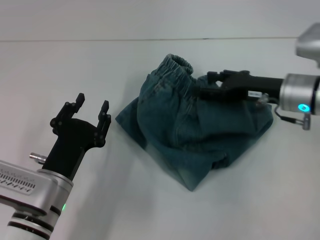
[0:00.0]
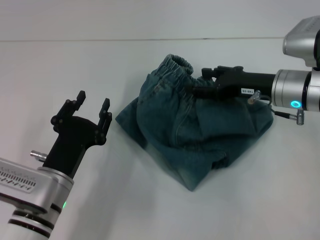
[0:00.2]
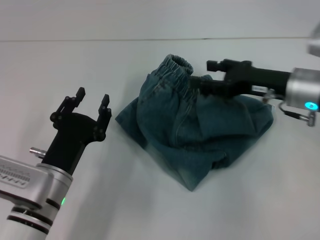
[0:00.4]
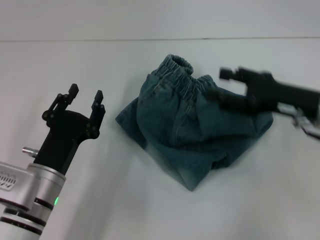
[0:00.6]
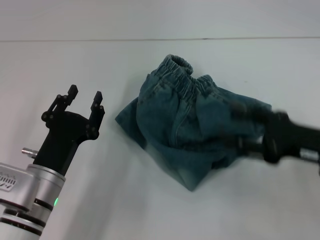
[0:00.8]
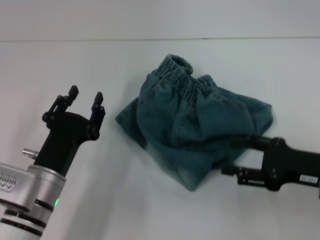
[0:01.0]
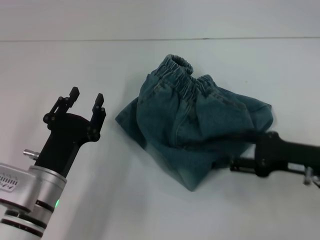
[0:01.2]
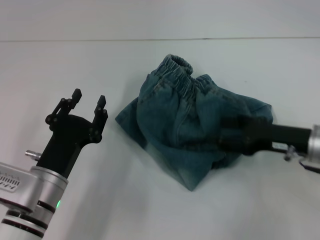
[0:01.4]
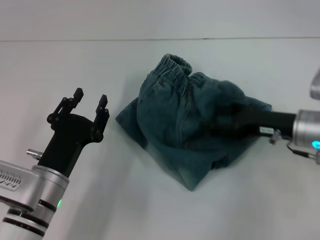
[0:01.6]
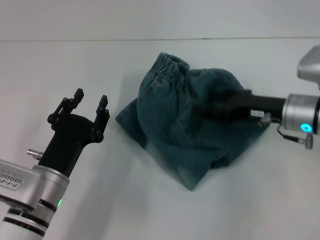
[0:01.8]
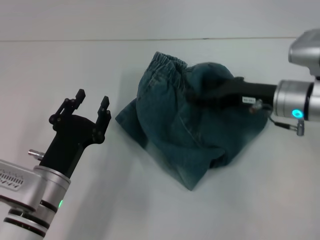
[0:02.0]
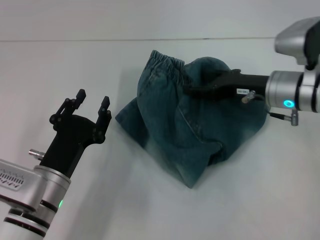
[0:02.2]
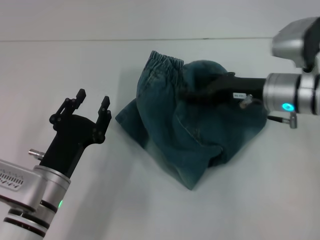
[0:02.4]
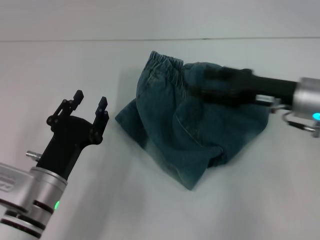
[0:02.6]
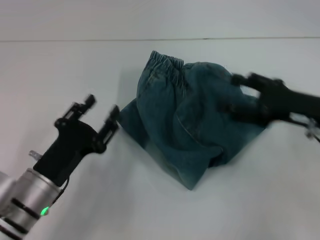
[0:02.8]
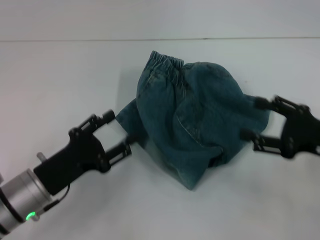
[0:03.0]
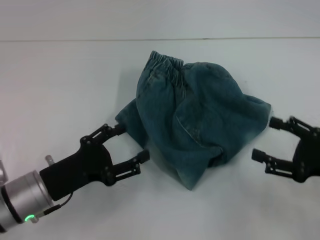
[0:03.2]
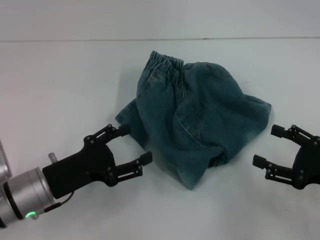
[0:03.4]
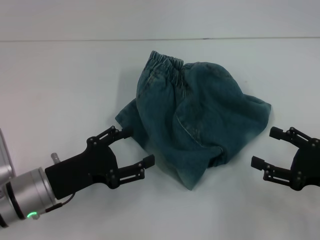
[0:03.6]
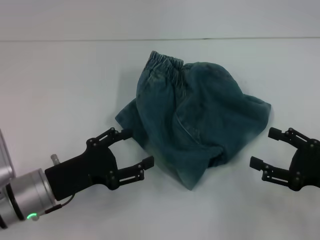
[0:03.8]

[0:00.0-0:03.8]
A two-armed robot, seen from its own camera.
Step, 0:00.0 to 0:03.2: Adjust the pants with your right hand.
0:00.0 to 0:01.2: The right gripper travels backward by some 10 cm.
0:01.2 to 0:02.6: The right gripper moves forward, roughly 10 cm.
0:02.6 to 0:03.8: The right gripper travels backward, to the right and downward by roughly 15 cm. The left gripper opens.

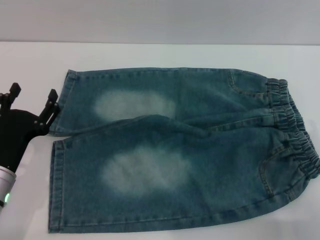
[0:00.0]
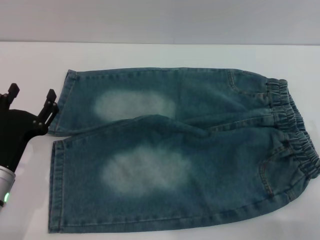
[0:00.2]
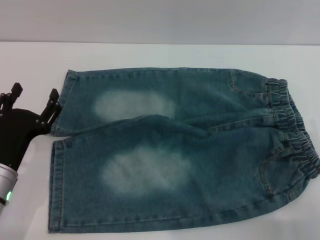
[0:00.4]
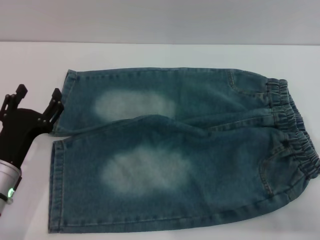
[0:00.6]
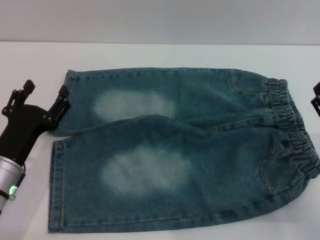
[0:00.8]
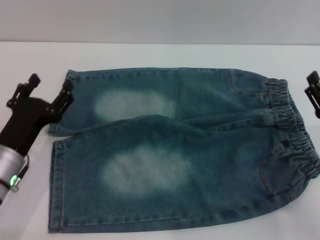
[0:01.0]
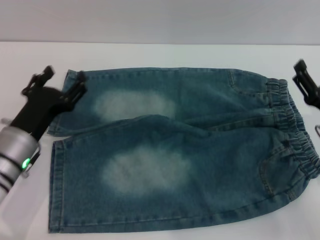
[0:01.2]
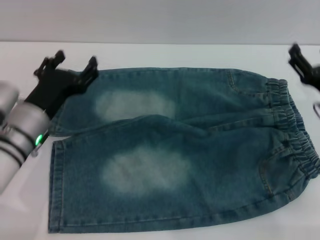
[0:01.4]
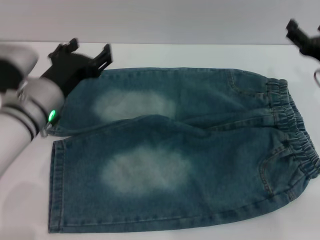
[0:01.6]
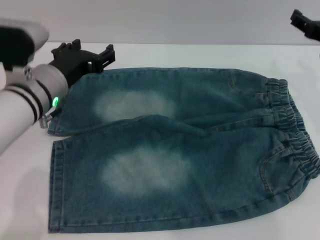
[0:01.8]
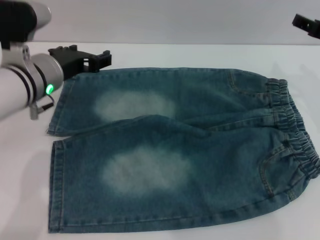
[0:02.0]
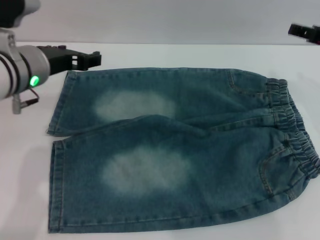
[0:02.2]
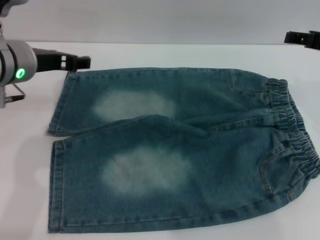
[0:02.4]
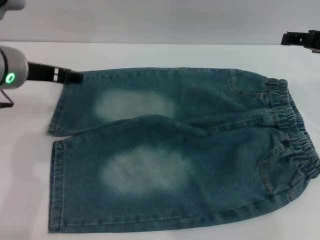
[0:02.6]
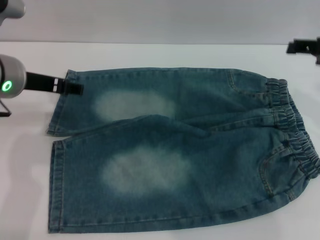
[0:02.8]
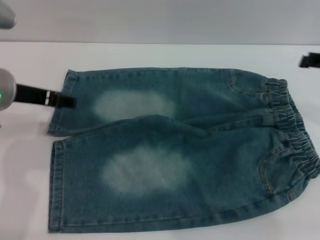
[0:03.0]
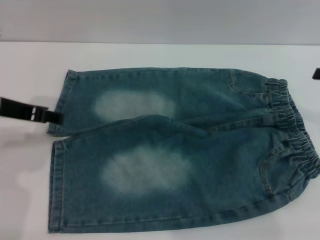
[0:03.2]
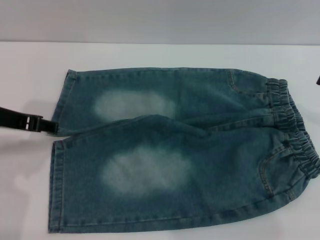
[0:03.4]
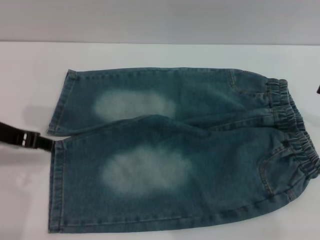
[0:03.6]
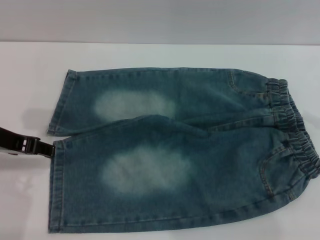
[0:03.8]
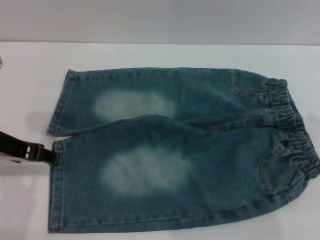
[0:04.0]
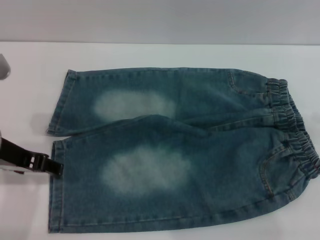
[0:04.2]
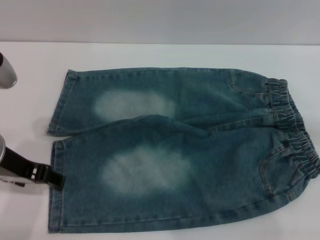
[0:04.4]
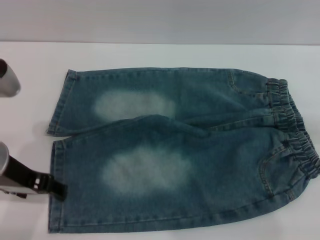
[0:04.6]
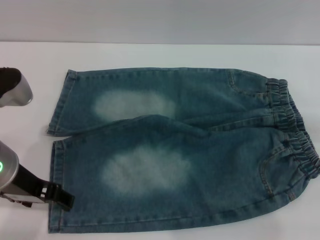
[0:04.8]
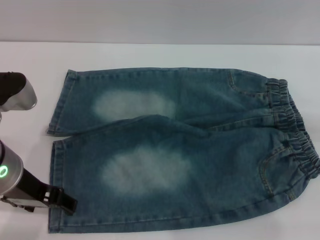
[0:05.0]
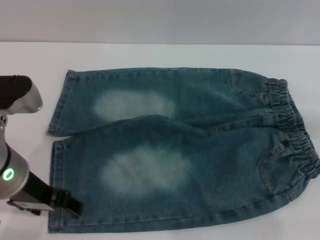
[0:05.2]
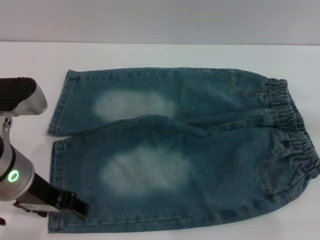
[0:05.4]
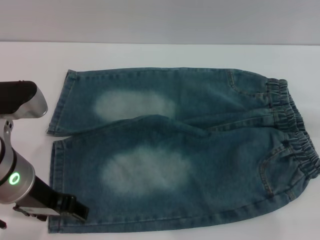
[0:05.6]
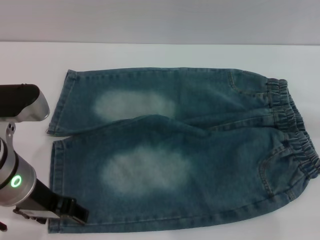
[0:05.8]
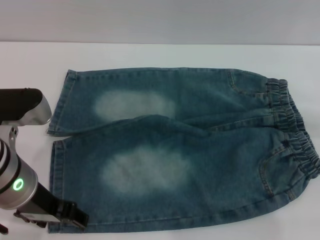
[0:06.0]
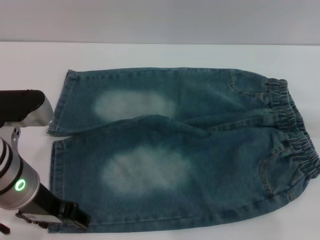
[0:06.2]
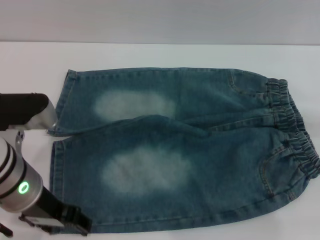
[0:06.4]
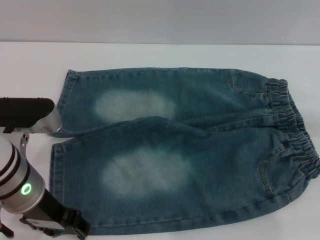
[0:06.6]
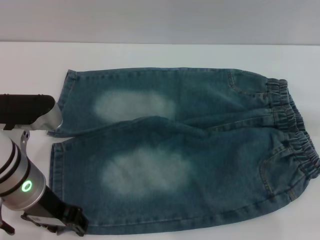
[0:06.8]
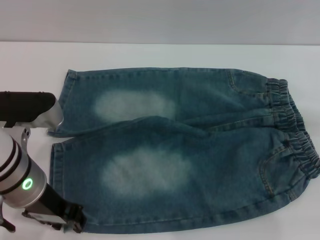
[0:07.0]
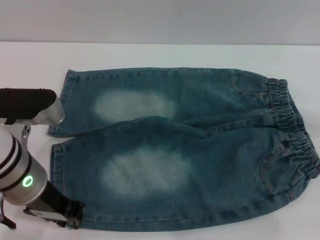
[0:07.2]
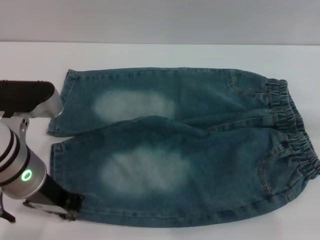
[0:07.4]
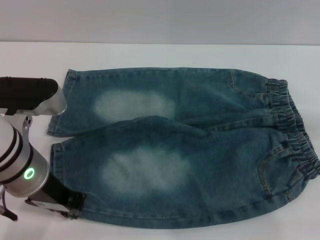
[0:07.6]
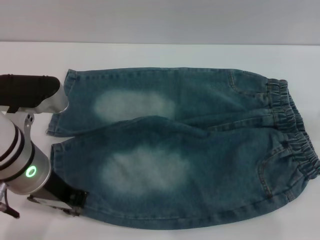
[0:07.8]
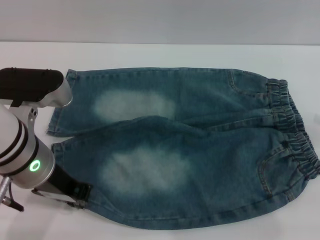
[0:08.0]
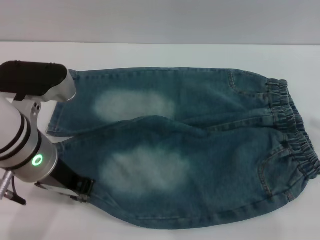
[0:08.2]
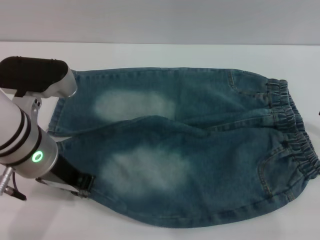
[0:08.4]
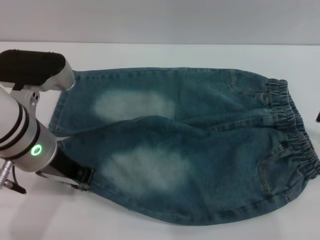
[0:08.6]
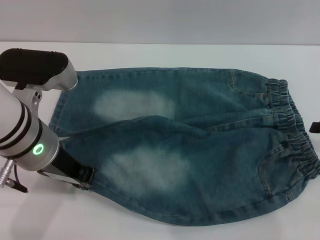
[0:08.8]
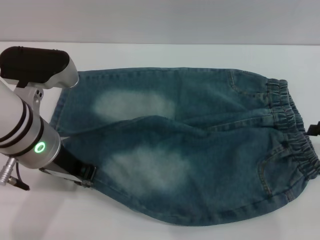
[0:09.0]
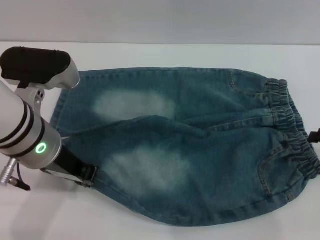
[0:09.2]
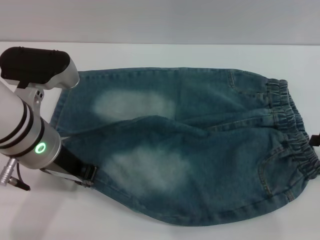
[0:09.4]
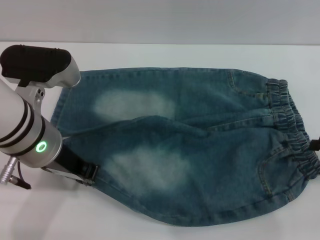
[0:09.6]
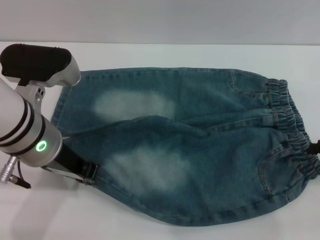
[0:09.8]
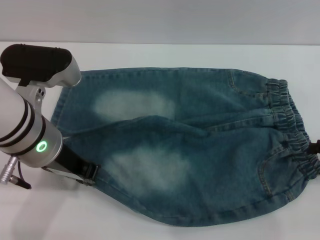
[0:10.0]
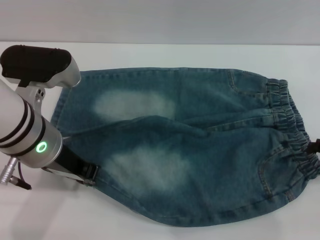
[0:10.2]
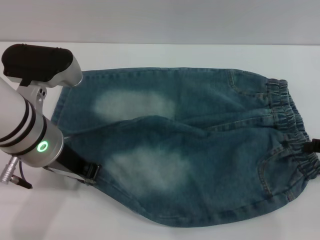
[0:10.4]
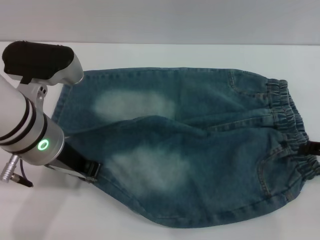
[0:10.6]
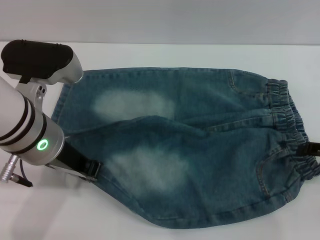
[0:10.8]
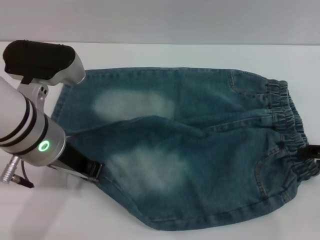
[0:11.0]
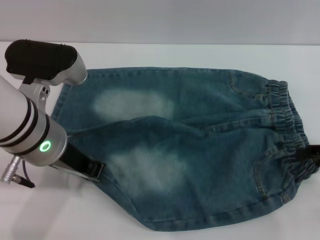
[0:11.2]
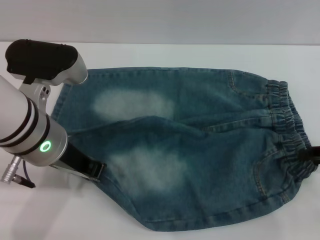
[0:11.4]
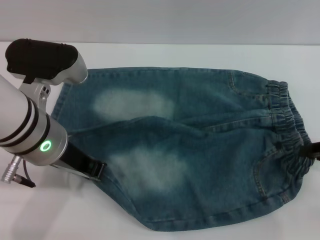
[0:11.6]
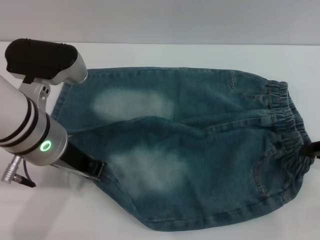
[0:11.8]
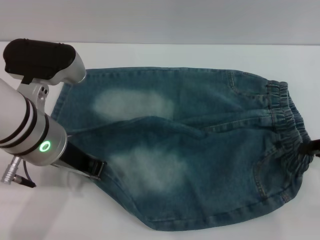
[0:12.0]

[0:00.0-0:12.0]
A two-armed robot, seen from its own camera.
0:00.0 to 0:01.6: The left gripper shifts approximately 15 cm forward, upward and to the right. Meanwhile the right gripper heads forward and upward, covering roughly 15 cm.
0:01.6 to 0:03.0: Both grippers travel together upward, roughly 10 cm.
0:03.0 to 0:04.4: The left gripper travels backward by roughly 5 cm. Meanwhile the right gripper travels to the right by some 5 cm.
0:04.4 to 0:06.0: The grippers stay close to where they were, moving slightly.
0:06.0 to 0:07.6: The left gripper closes.
0:07.6 to 0:09.0: The right gripper shifts by about 5 cm.
0:09.0 to 0:10.4: The grippers stay close to where they were, moving slightly.
0:10.4 to 0:12.0: The right gripper closes up.

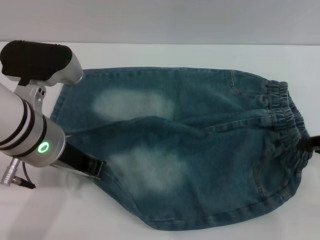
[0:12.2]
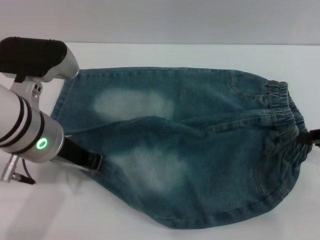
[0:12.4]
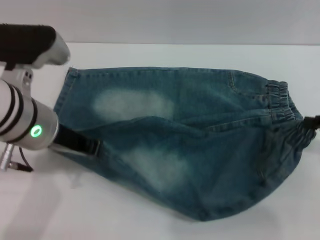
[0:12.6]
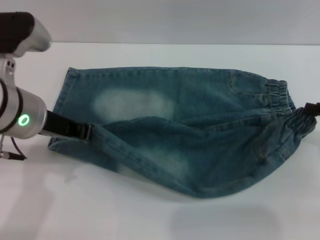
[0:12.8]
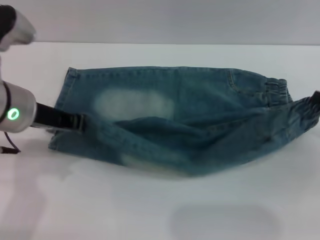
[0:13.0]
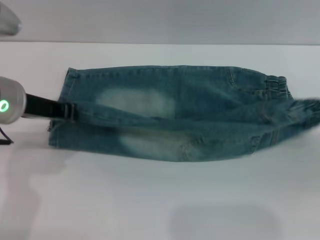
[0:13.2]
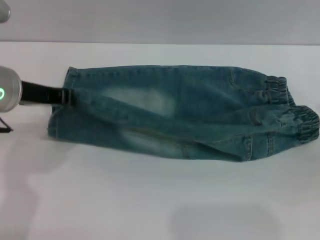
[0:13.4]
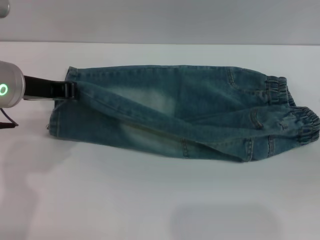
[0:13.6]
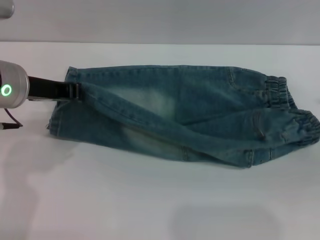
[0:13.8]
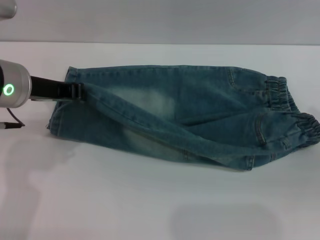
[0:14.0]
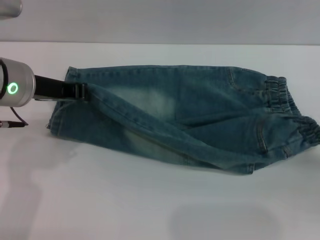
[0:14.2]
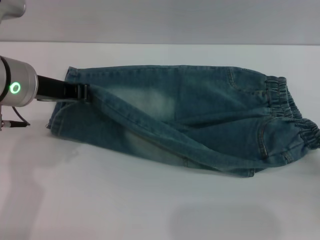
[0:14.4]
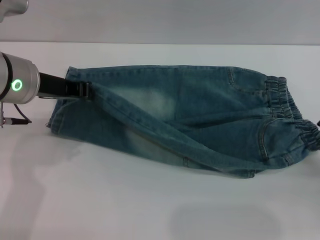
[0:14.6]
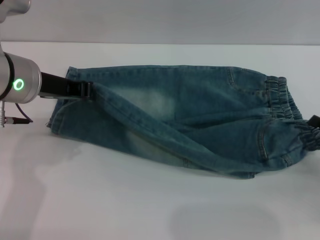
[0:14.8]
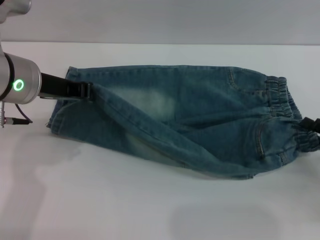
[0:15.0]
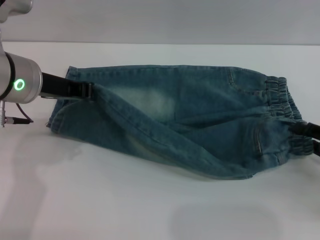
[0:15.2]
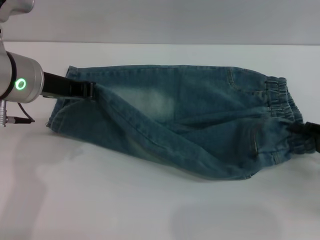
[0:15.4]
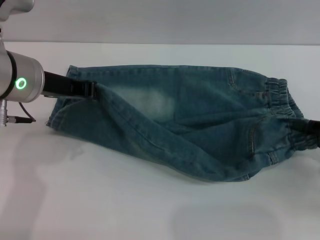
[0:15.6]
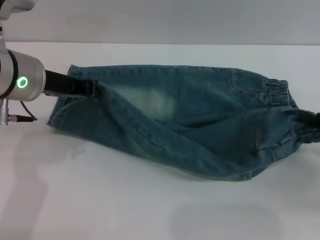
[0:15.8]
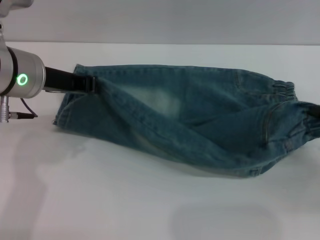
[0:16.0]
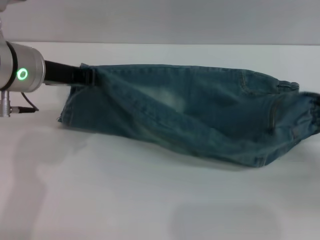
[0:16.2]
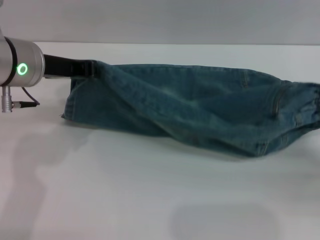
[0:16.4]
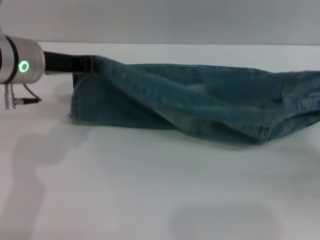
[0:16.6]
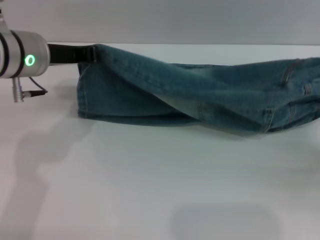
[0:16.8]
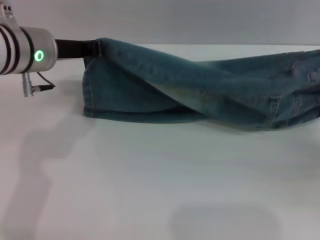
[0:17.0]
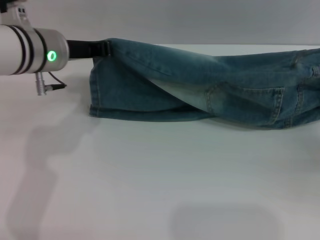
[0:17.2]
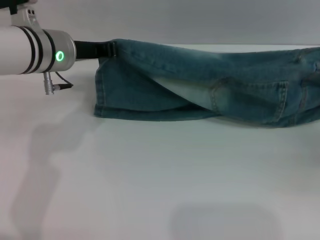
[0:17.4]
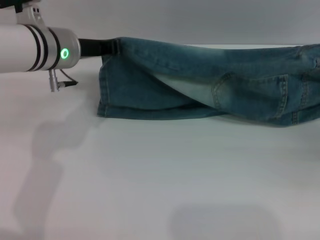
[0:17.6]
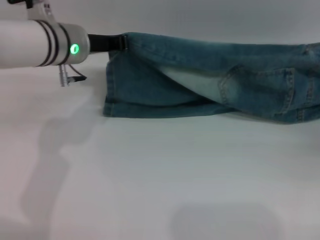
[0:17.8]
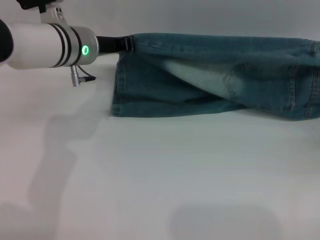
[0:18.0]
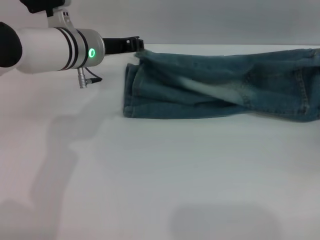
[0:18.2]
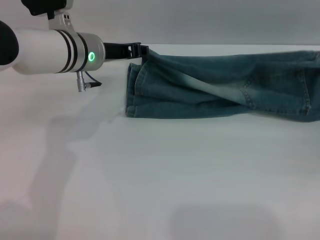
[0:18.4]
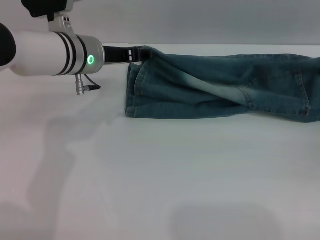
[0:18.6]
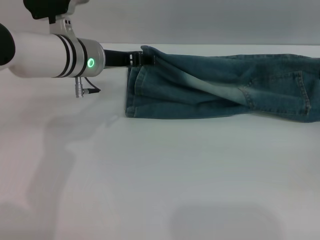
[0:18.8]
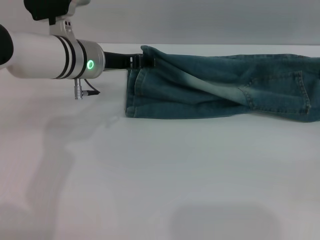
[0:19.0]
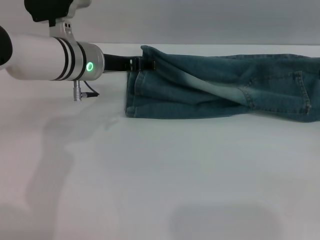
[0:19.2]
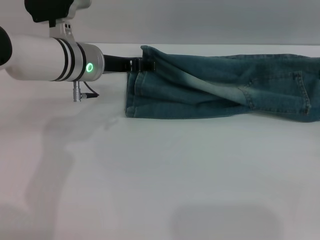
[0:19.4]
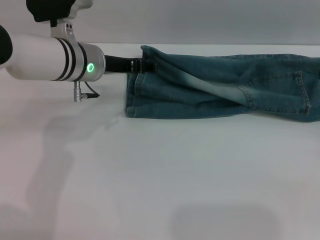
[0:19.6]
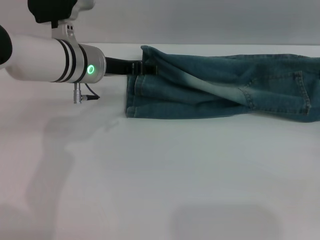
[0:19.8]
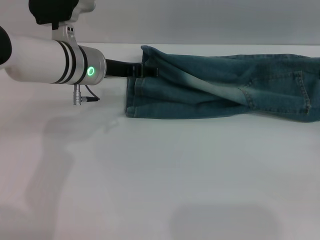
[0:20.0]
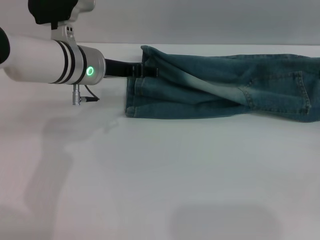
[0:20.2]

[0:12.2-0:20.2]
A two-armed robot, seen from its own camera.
Step, 0:12.2 to 0:18.2: Fold the bottom of the pants upward with both grippers.
0:12.2 to 0:13.8: The right gripper changes place by approximately 5 cm. The left gripper moves to the left, about 5 cm.
0:13.8 to 0:15.4: The right gripper shifts by roughly 5 cm, and opens.
0:15.4 to 0:17.0: The right gripper closes.
0:17.0 to 0:18.6: The left gripper is displaced downward by approximately 5 cm, and opens, while the right gripper changes place by some 5 cm, and opens up.
0:18.6 to 0:20.2: The right gripper shifts some 5 cm backward. The left gripper opens up.
